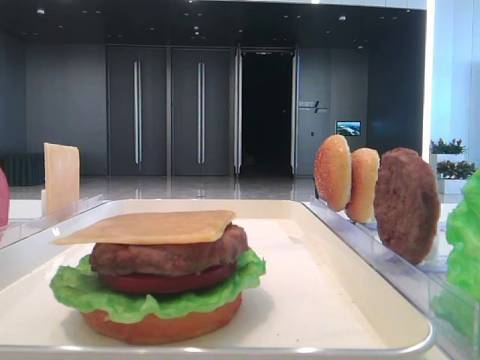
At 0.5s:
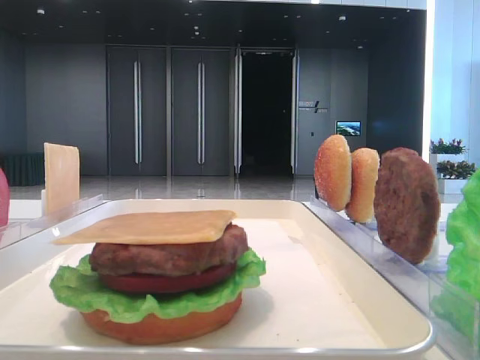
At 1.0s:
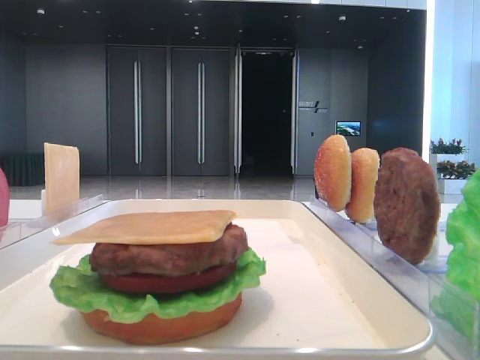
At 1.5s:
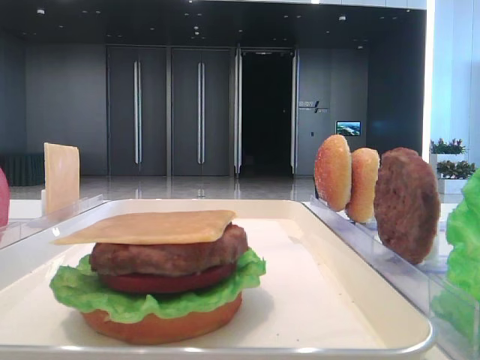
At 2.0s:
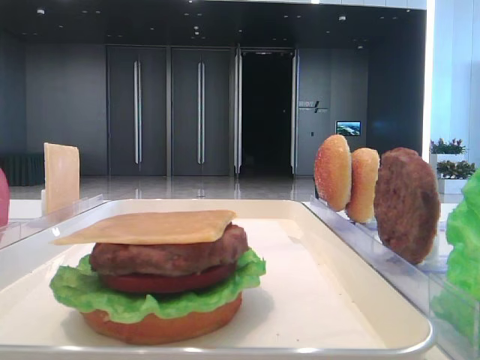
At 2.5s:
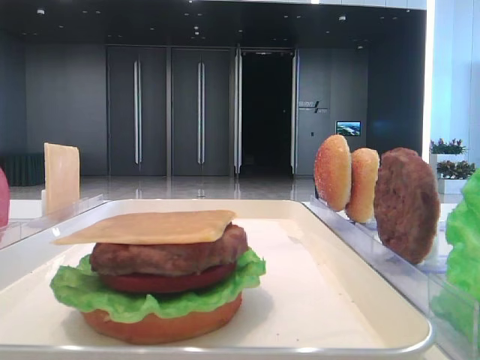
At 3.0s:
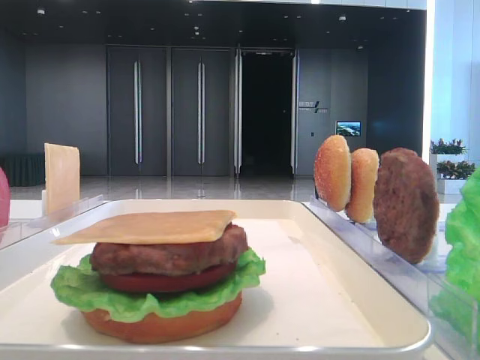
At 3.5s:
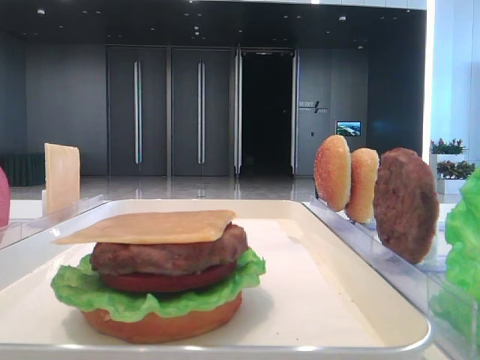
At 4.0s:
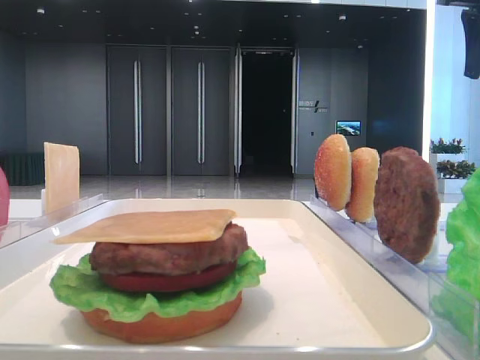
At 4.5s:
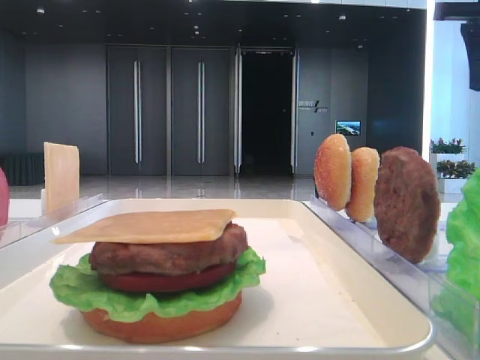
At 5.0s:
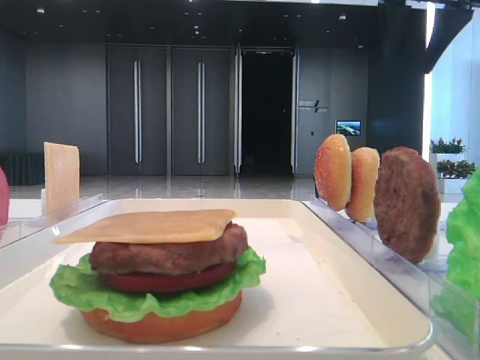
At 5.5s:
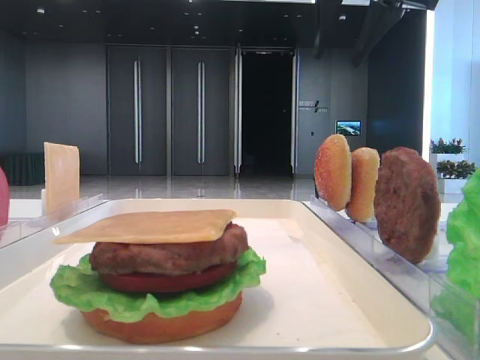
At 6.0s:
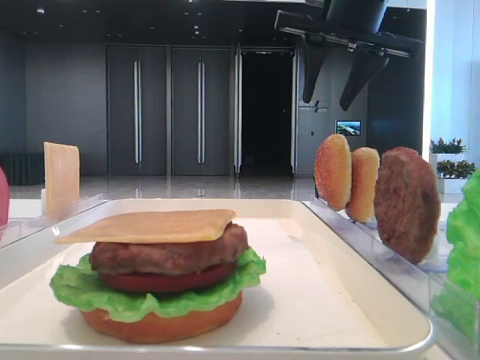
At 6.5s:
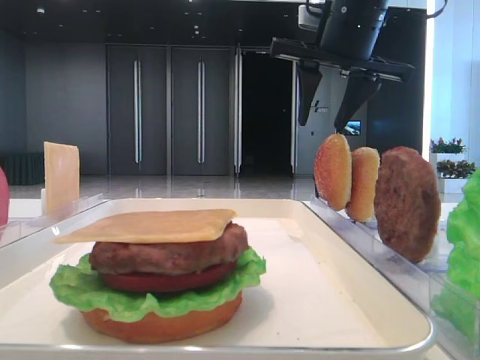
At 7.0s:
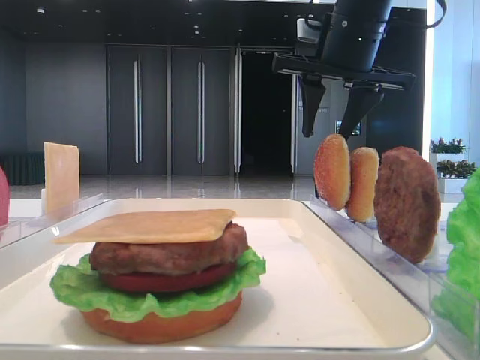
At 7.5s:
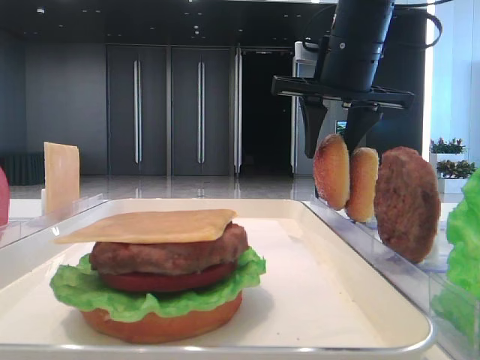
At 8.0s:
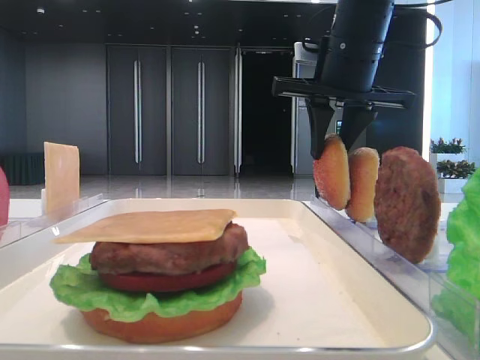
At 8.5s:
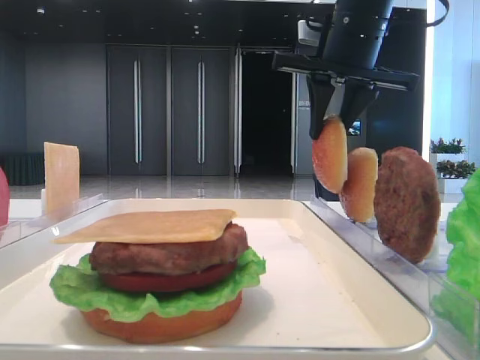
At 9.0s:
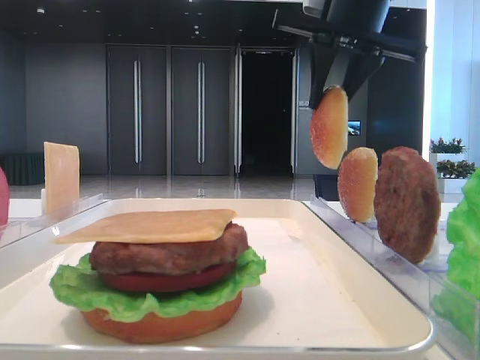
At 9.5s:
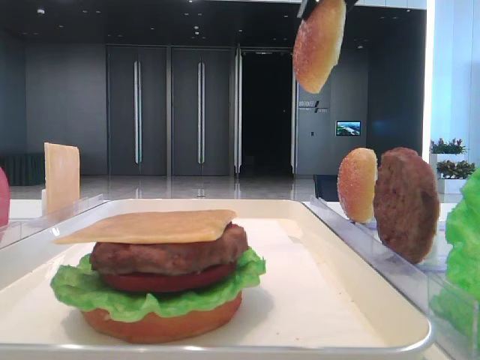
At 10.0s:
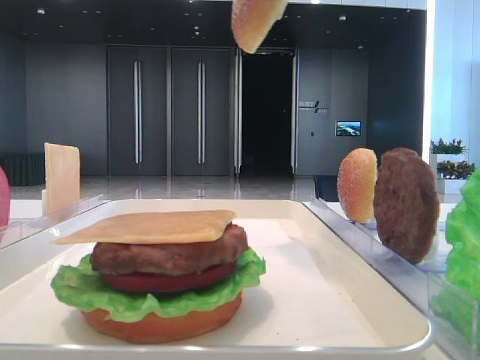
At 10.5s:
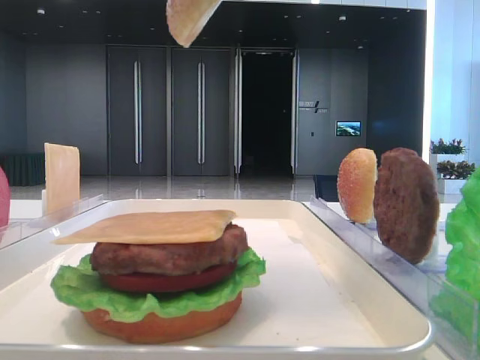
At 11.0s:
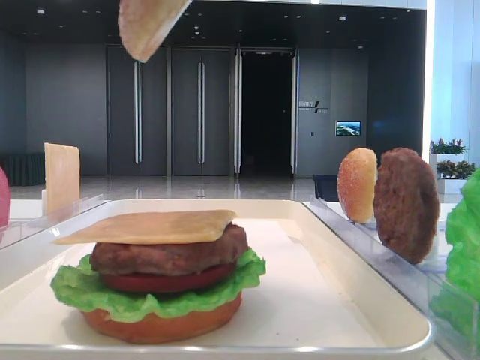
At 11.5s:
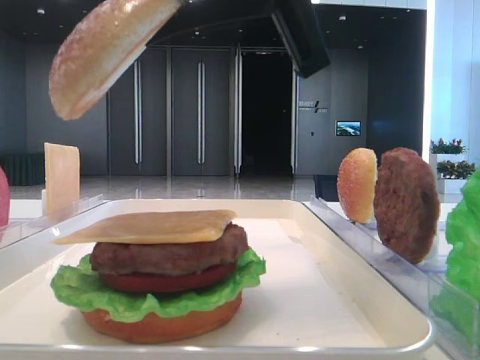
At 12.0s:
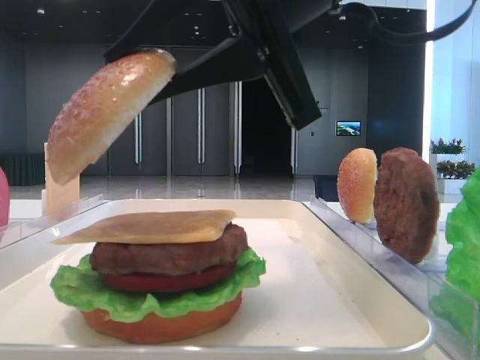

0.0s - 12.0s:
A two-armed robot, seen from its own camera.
Step, 0.0s - 7.5s: Pick up the top bread slice with the right hand.
2.0s - 4.0s: The right gripper moves forward, roughly 40 cm.
4.0s - 6.0s: The right gripper moves to the left, some 15 cm.
6.0s - 8.0s: The right gripper moves downward, approximately 5 cm, and closes its fingers.
8.0s - 10.0s: The right gripper travels backward and upward by about 20 cm.
10.0s - 12.0s: The right gripper shifts approximately 15 cm downward.

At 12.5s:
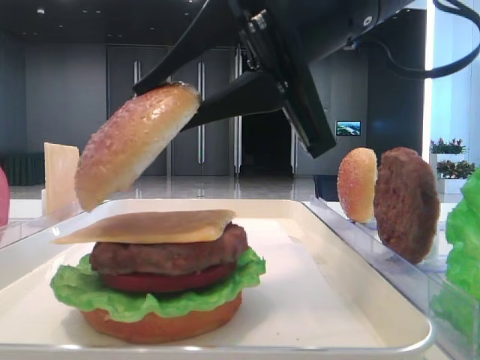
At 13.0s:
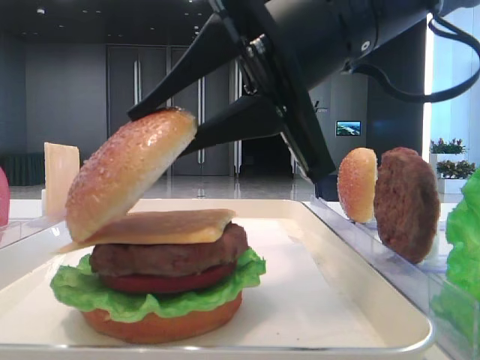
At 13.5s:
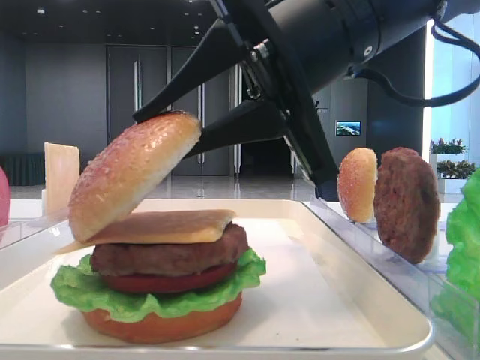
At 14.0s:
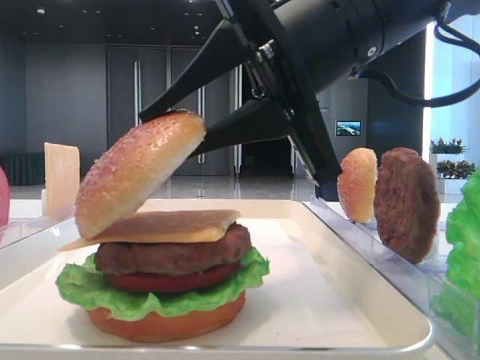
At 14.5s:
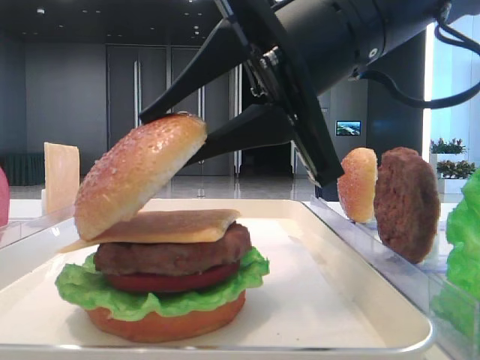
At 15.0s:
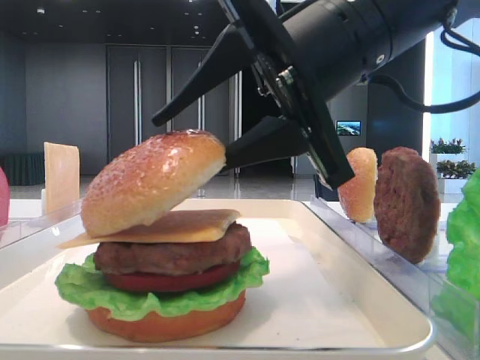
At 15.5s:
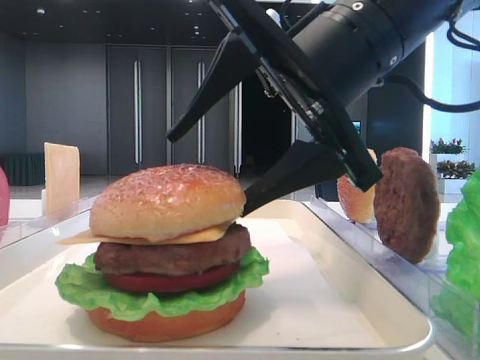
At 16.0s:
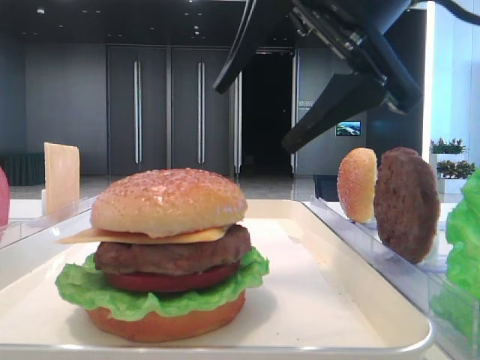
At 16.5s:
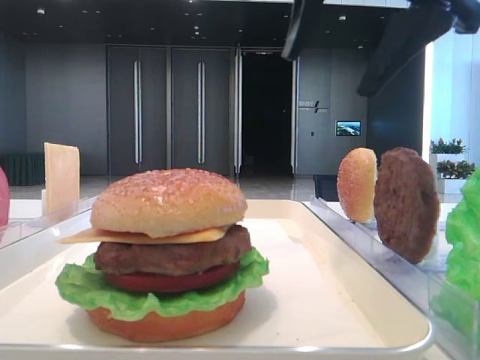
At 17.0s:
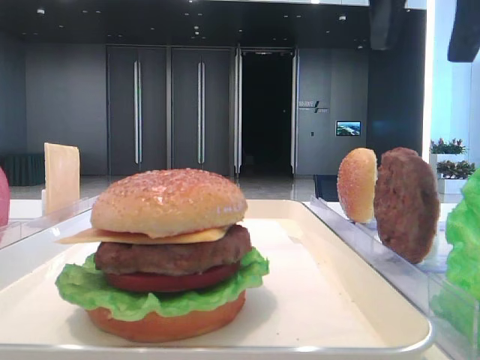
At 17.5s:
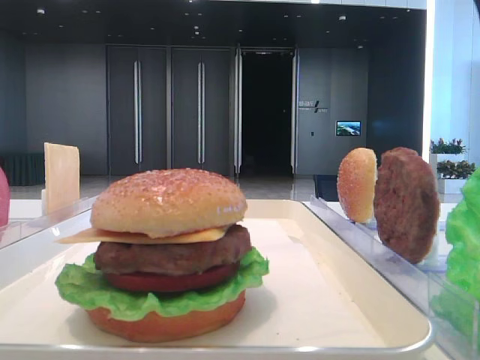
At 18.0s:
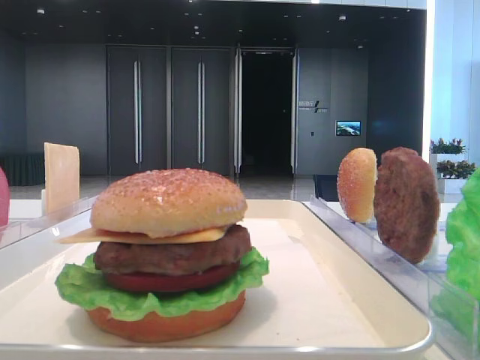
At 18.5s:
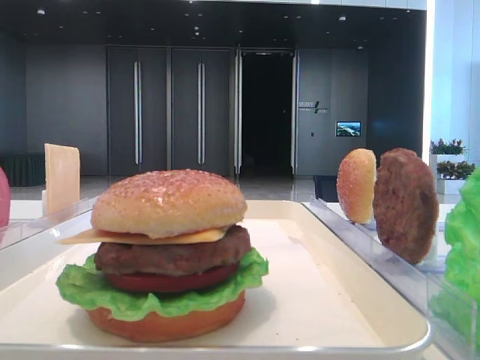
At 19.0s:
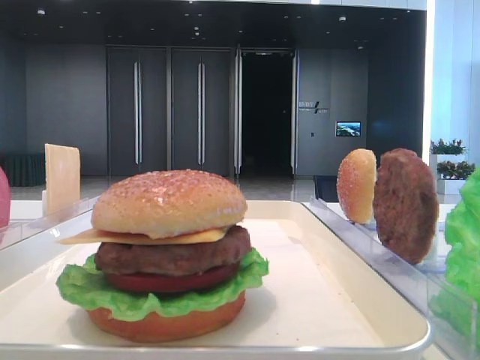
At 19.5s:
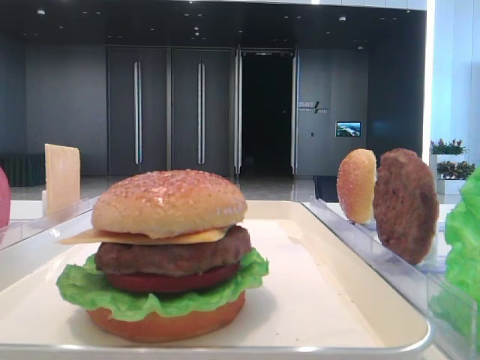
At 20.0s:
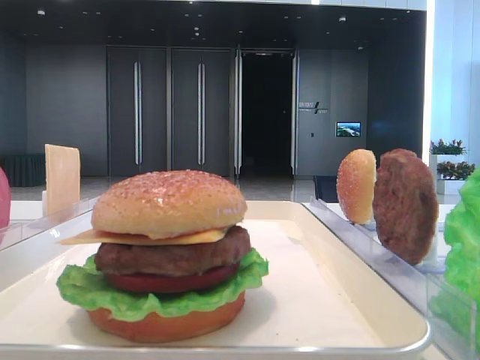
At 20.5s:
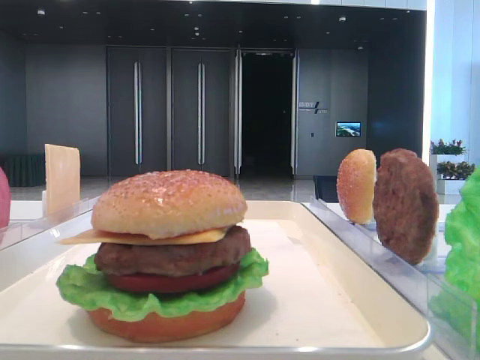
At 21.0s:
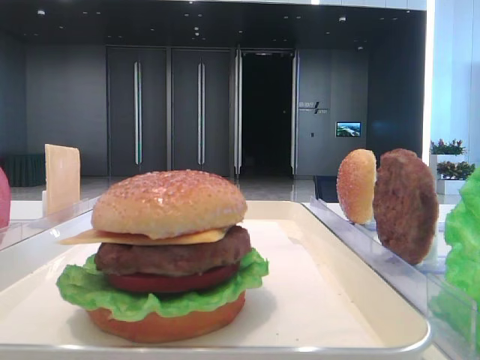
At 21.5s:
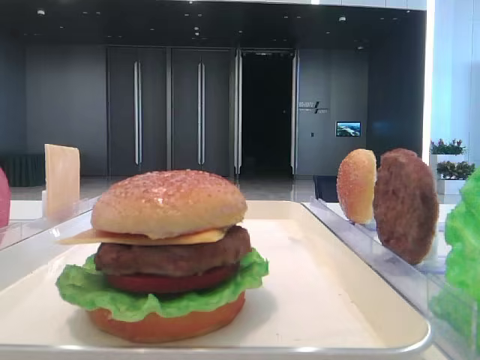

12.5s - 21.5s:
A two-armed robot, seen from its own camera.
Step, 12.5s - 15.0s: Place the top bread slice on the cheese with the right hand.
12.5s - 14.5s: There are only small adjustments of the grippers.
14.5s - 17.0s: The right gripper moves upward and to the right, some 15 cm, and opens.
17.0s - 19.5s: The right gripper travels backward and to the right by roughly 30 cm.

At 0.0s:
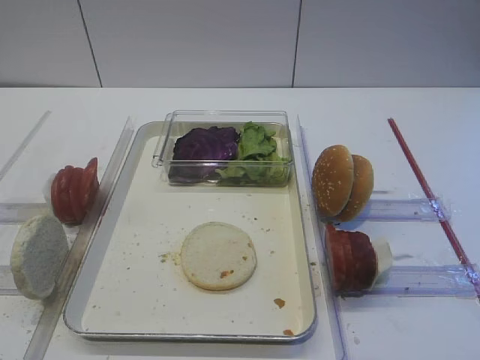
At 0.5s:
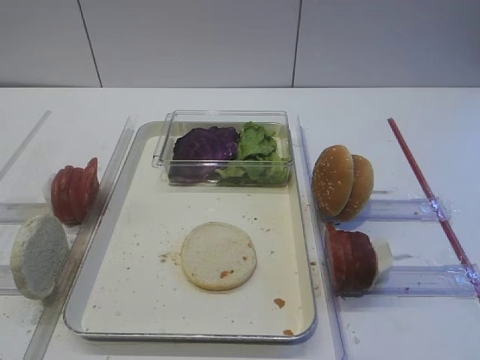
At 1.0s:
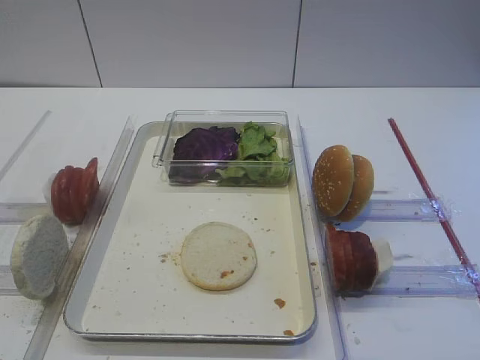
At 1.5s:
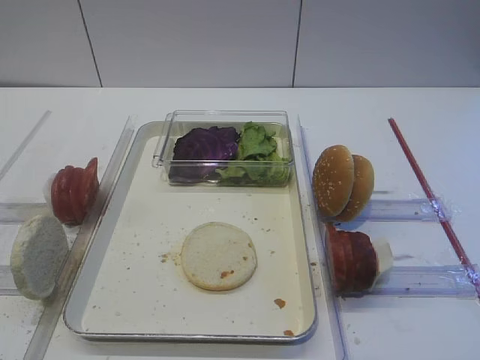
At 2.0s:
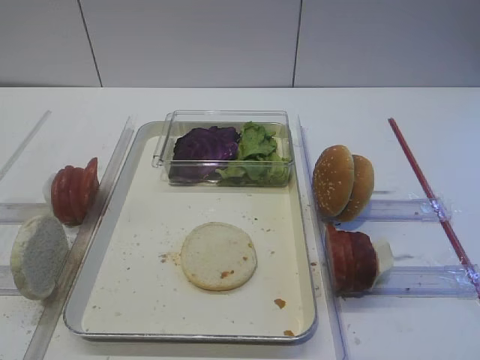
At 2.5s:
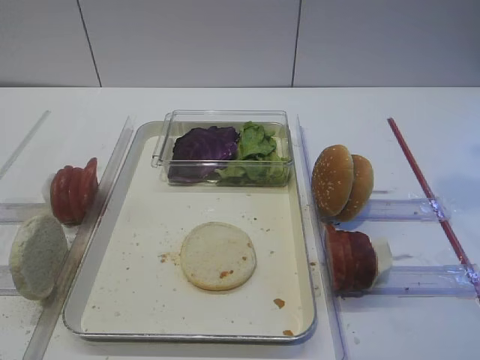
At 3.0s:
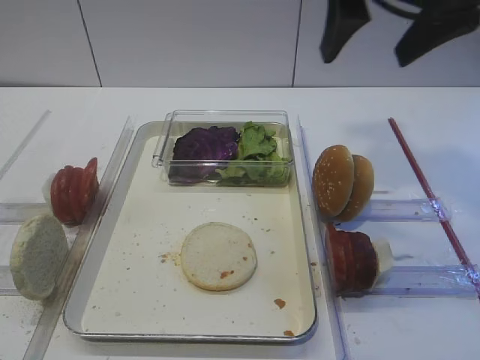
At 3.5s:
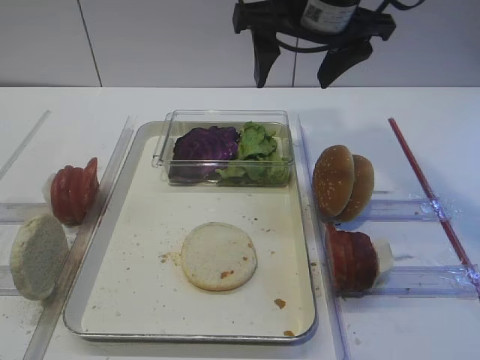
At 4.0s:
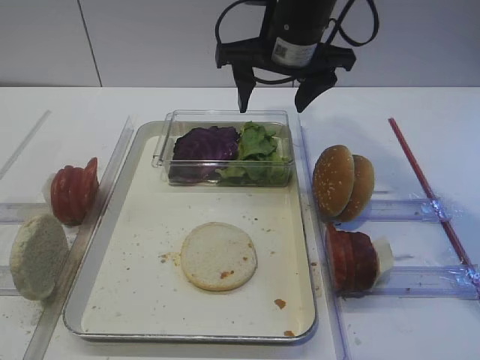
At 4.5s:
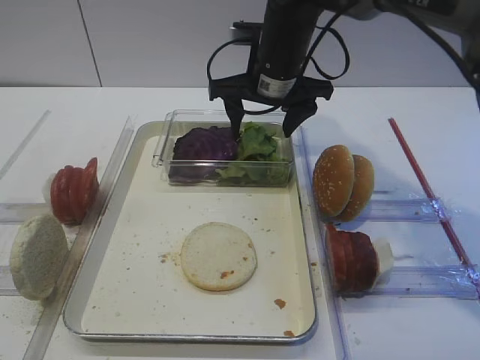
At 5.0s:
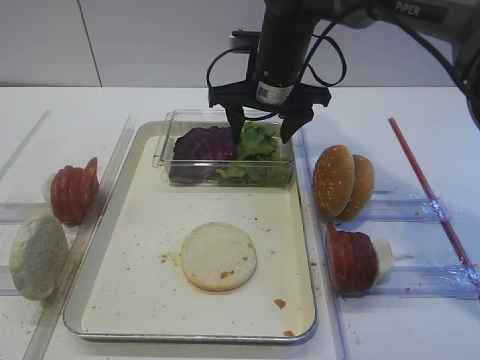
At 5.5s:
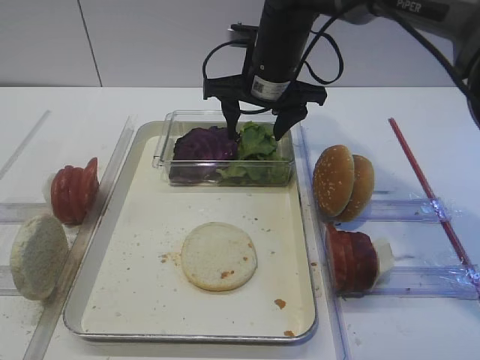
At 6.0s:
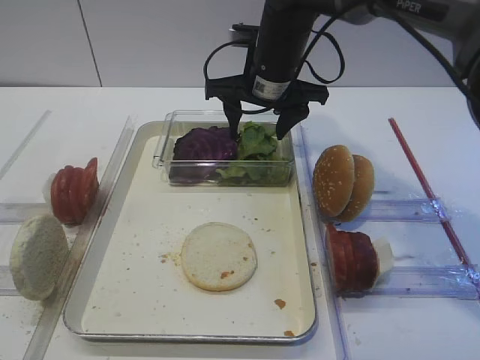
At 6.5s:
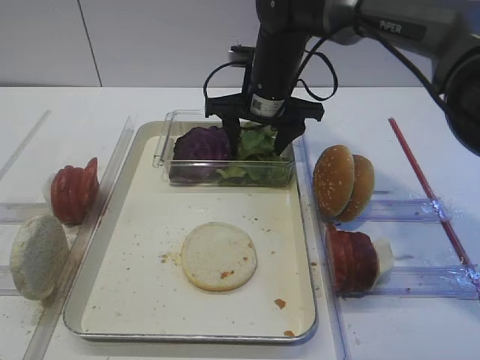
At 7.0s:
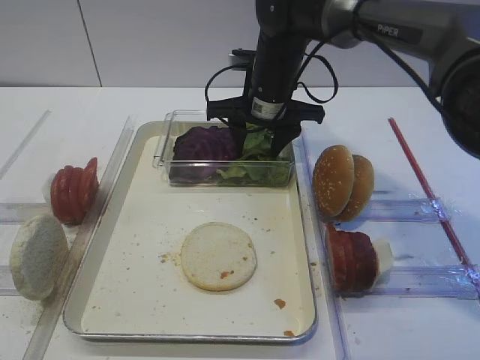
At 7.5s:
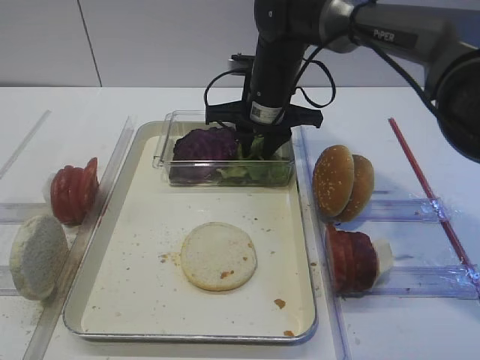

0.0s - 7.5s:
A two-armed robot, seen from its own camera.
2.0s - 4.0s: The right gripper shifts approximately 35 cm forward and to the left.
4.0s - 5.5s: The right gripper heads downward, covering roughly 5 cm.
5.5s - 7.5s: The right gripper closes up.
